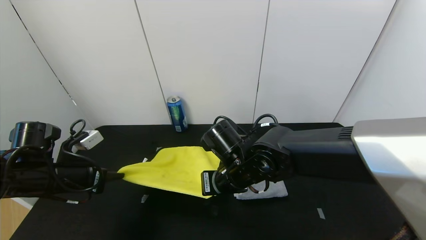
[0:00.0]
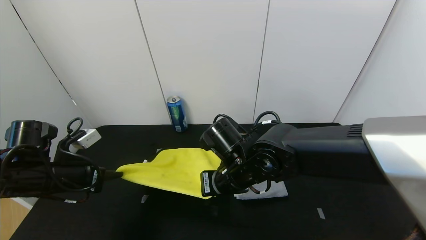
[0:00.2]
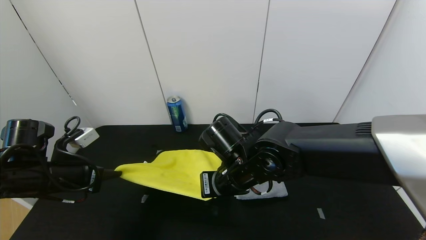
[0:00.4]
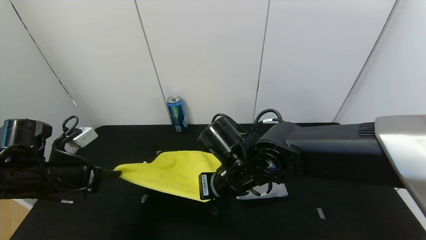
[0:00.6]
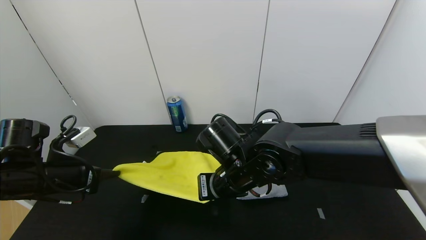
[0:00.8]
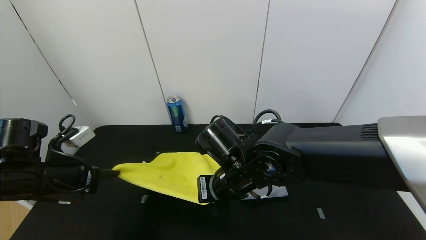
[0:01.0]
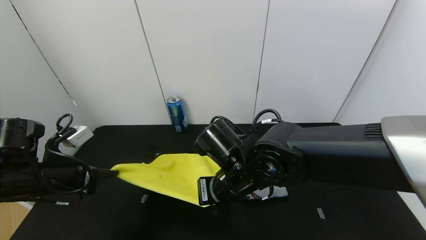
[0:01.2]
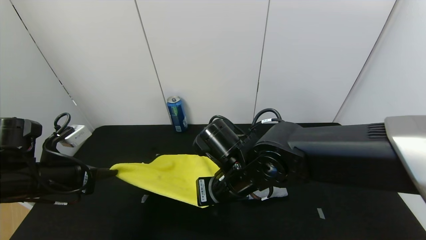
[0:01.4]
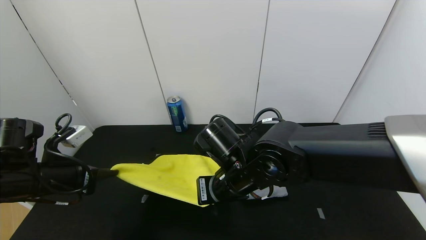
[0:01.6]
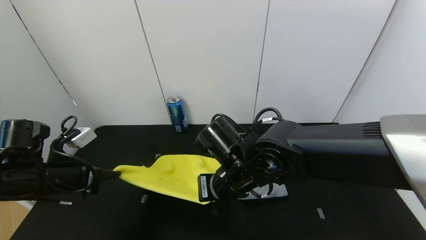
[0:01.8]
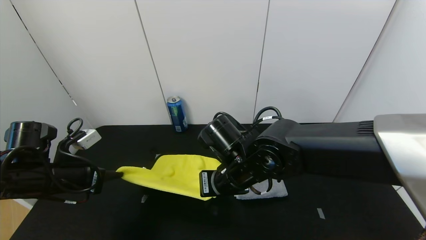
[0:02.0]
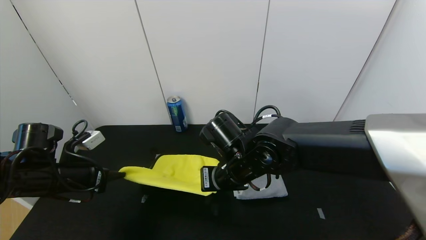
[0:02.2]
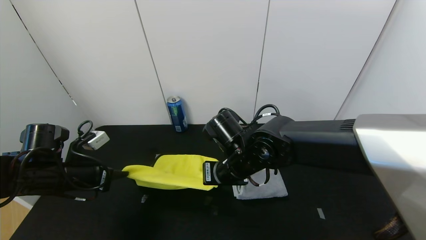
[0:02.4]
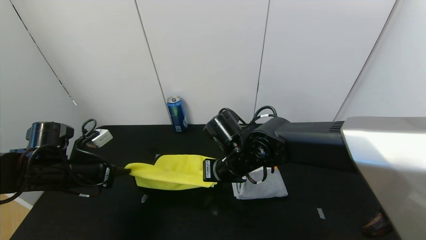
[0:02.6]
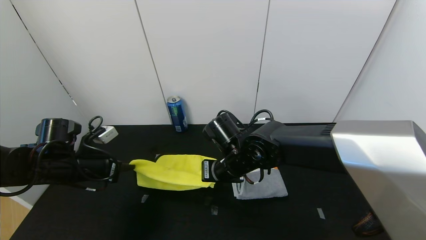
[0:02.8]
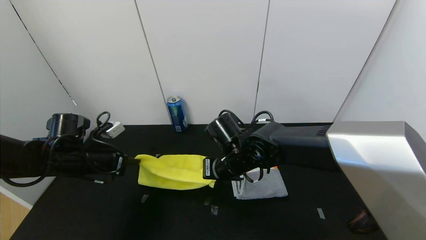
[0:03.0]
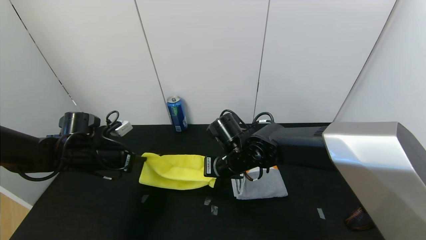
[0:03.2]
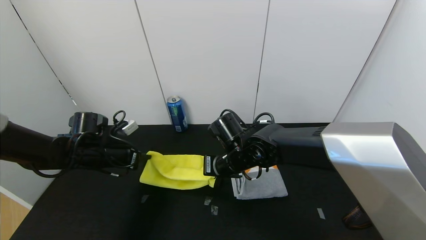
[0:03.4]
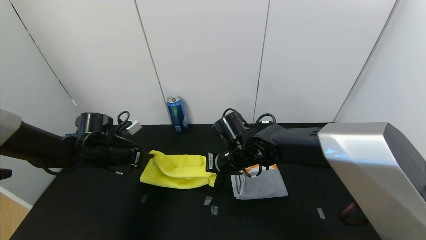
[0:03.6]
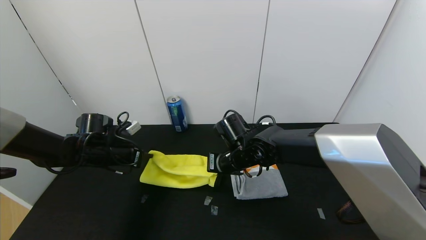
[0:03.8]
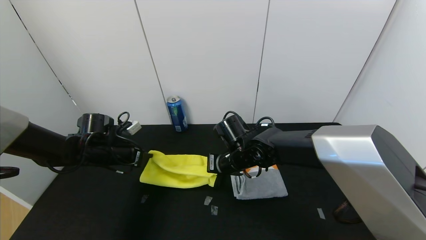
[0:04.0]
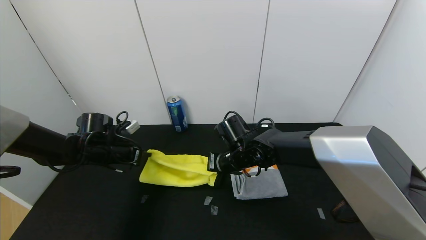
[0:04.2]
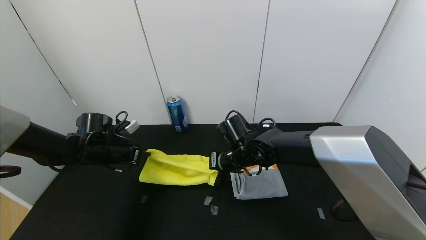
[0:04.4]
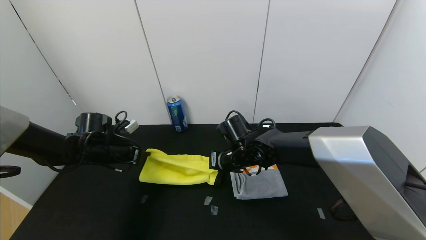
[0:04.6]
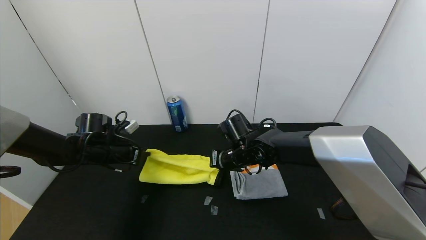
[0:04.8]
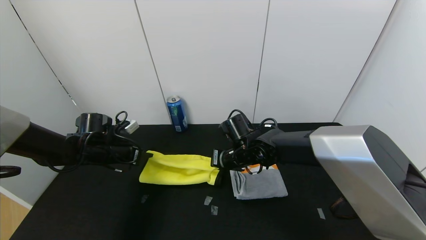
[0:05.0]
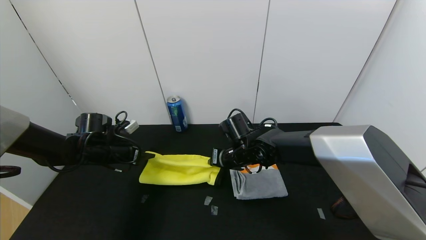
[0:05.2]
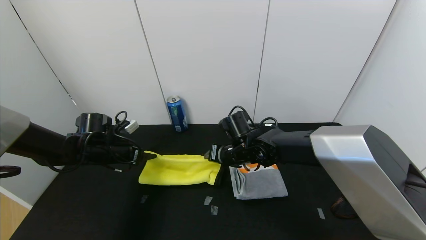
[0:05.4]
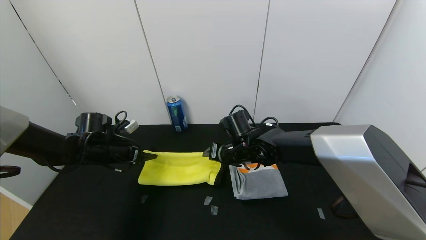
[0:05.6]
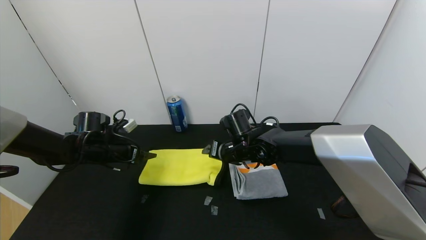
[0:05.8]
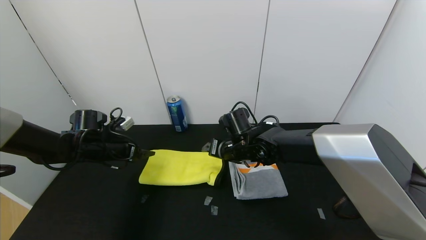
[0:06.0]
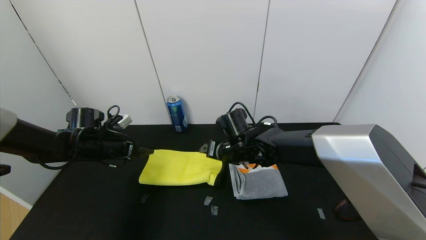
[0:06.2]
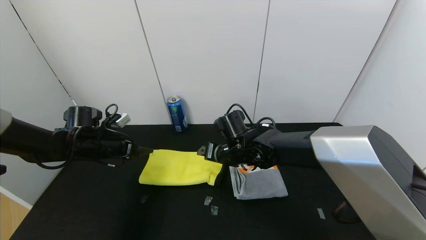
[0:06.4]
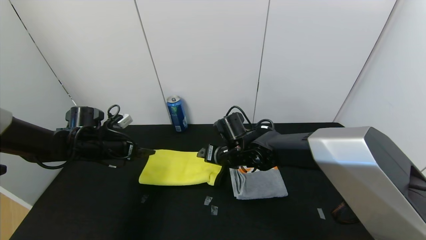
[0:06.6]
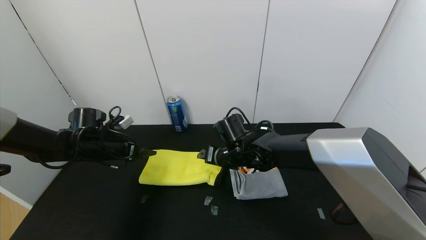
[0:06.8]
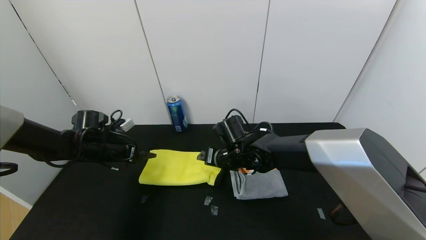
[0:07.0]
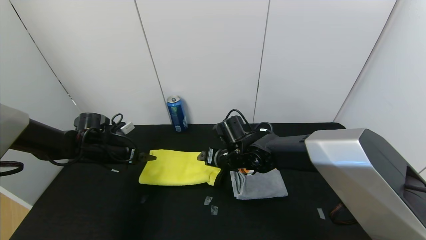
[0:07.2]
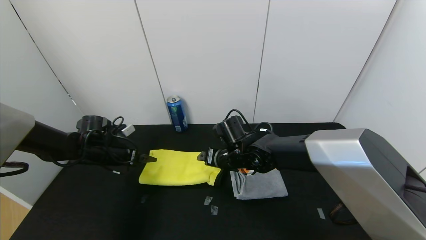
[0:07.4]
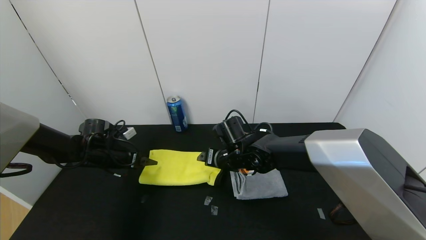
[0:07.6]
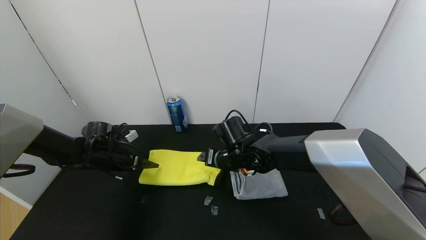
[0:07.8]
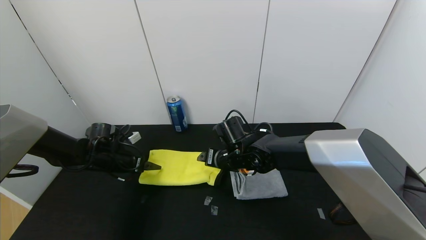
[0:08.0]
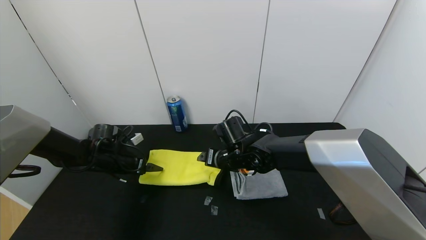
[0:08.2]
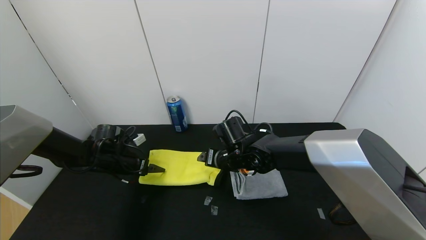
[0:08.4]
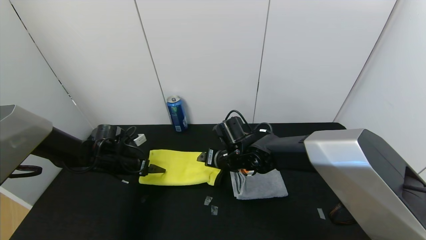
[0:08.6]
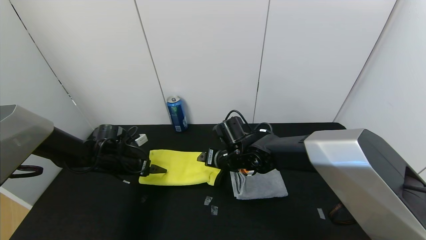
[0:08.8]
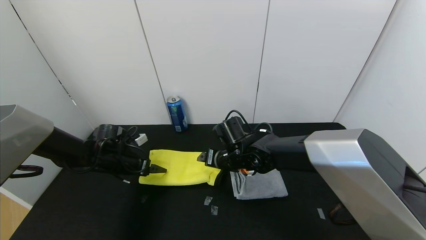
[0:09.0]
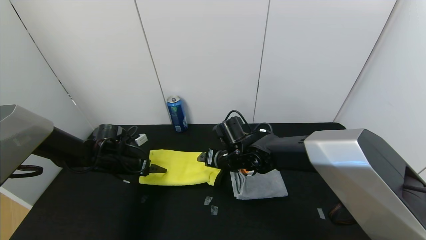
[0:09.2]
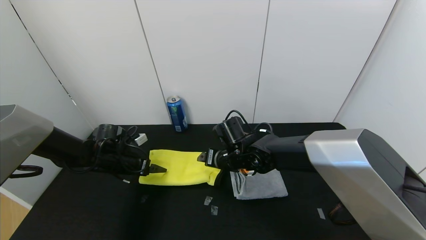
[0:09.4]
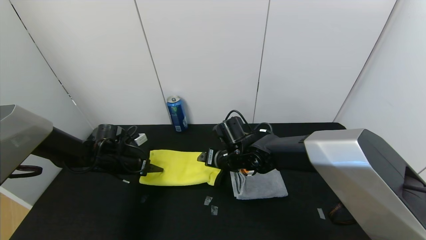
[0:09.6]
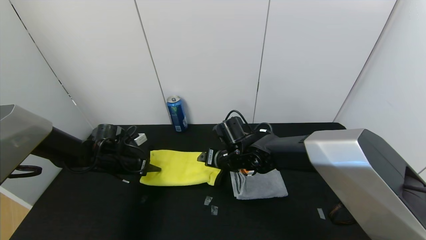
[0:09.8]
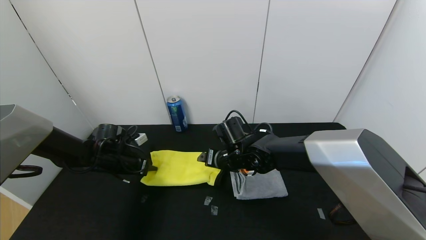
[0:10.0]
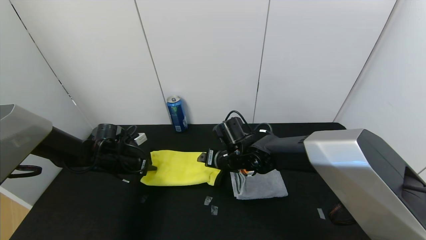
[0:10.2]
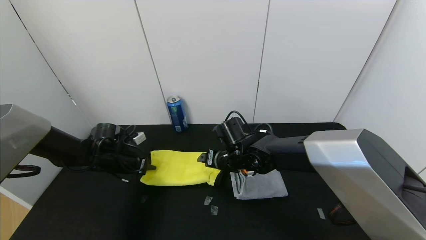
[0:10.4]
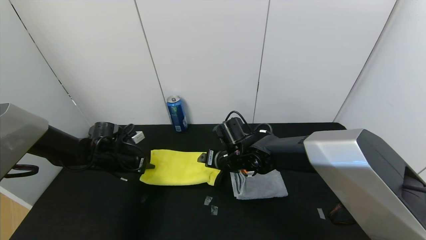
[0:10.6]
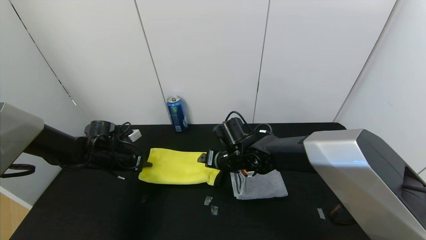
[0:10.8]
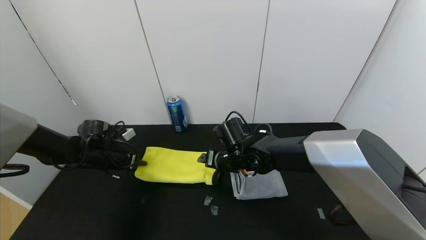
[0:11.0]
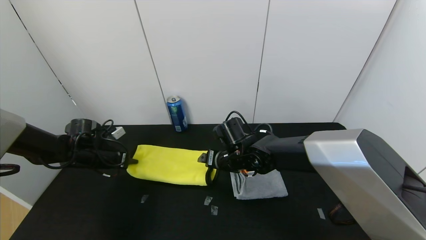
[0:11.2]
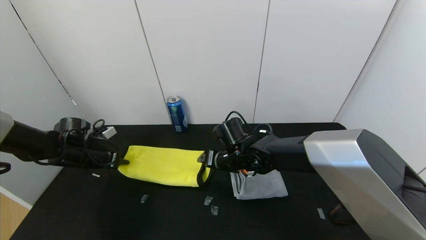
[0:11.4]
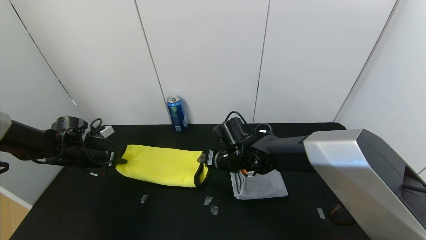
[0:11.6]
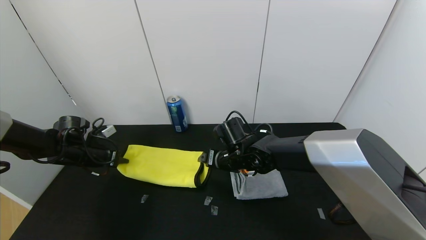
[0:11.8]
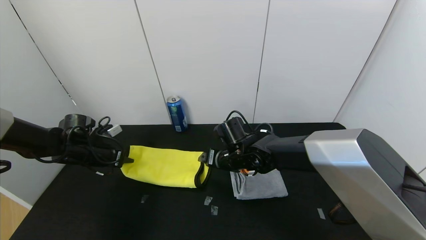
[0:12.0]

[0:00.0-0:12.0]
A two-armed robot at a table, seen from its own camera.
Task of the whole recording: Use the gripper to fold the yellow towel and grey towel in half twice,then put the yellow towel on the grey towel.
Step, 0:00.0 to 0:05.8: Fold the yellow towel upwards with the left gripper.
Step, 0:00.0 to 0:05.8: Fold the yellow towel upwards with the right gripper.
0:00.0 to 0:01.6: The grippers stay close to where they were, moving slightly.
0:01.6 to 0:03.0: Both grippers move forward, about 10 cm.
0:03.0 to 0:04.4: The left gripper shifts some 5 cm forward. Meanwhile the right gripper shifts by about 5 cm.
0:04.4 to 0:06.0: The left gripper opens its fingers, while the right gripper opens its fingers.
0:06.0 to 0:09.0: There are only small adjustments of the grippers.
0:09.0 to 0:10.4: The left gripper closes up.
0:10.4 to 0:12.0: The left gripper goes roughly 5 cm to the left.

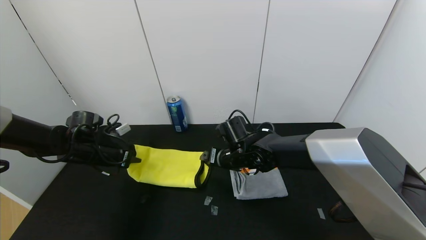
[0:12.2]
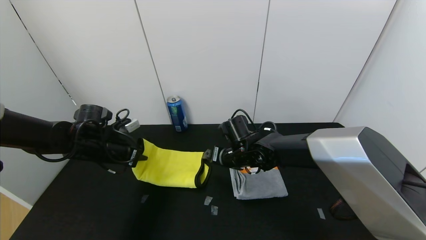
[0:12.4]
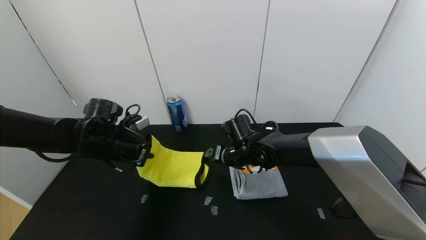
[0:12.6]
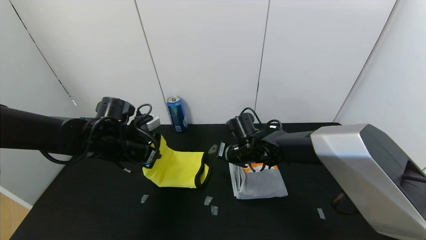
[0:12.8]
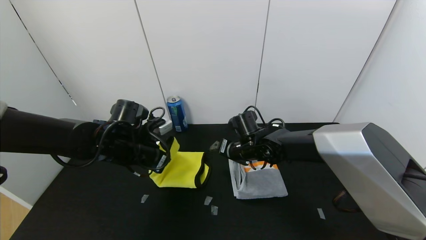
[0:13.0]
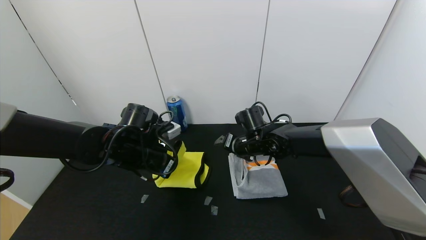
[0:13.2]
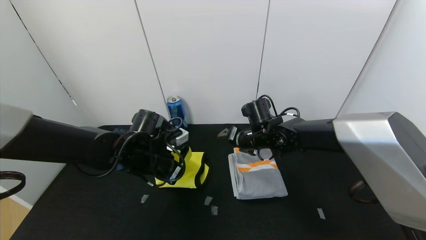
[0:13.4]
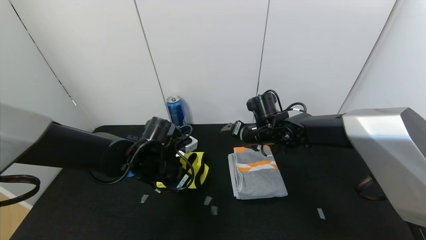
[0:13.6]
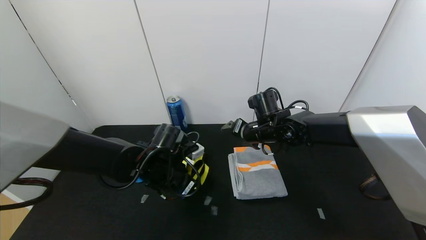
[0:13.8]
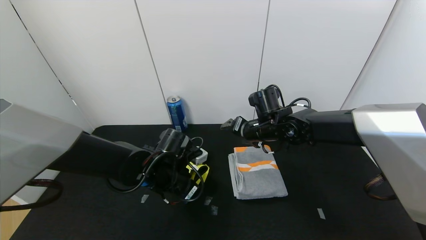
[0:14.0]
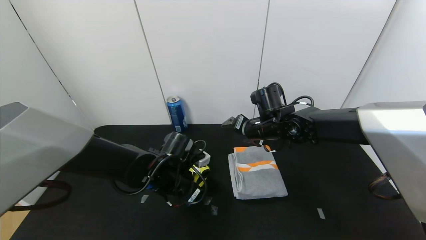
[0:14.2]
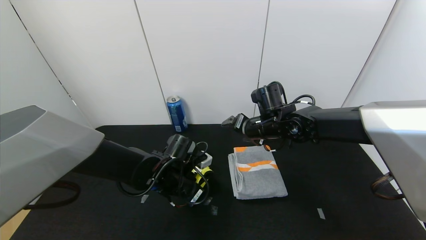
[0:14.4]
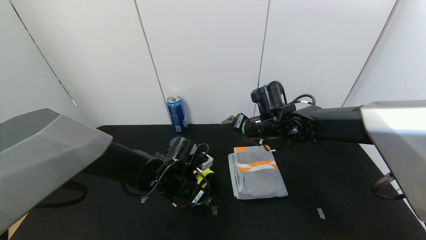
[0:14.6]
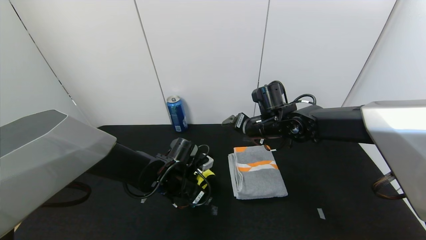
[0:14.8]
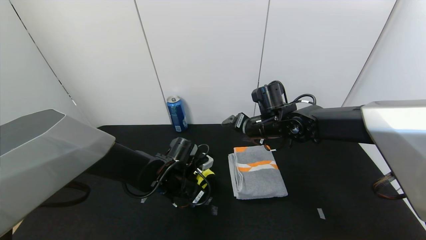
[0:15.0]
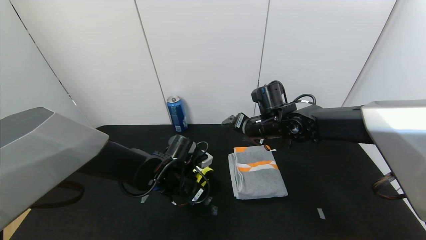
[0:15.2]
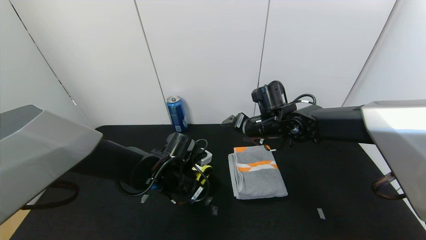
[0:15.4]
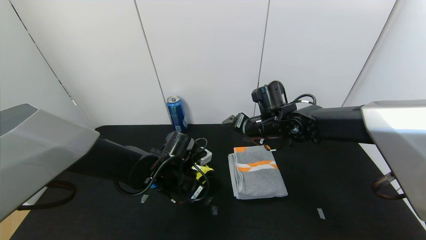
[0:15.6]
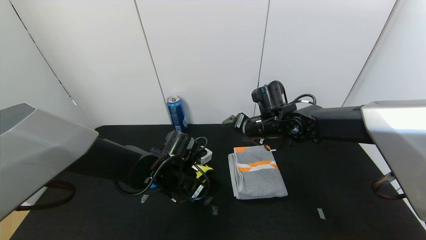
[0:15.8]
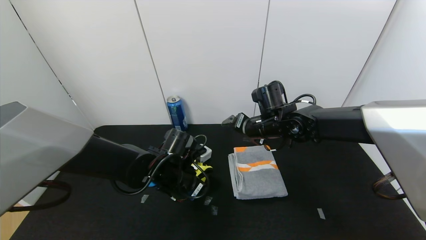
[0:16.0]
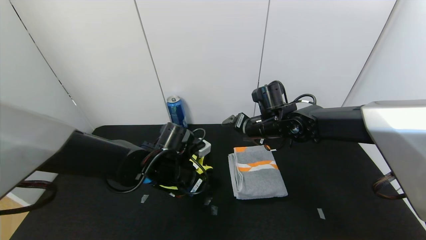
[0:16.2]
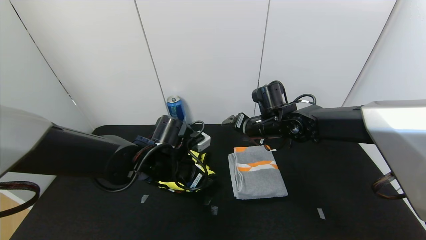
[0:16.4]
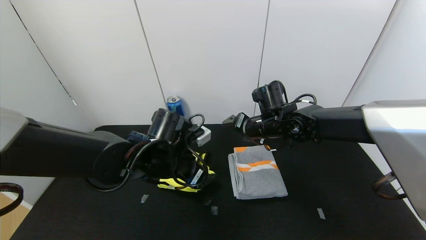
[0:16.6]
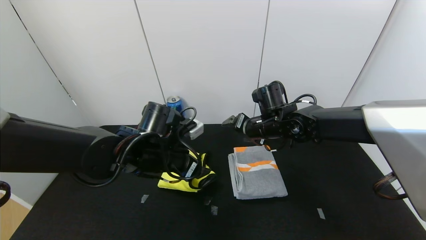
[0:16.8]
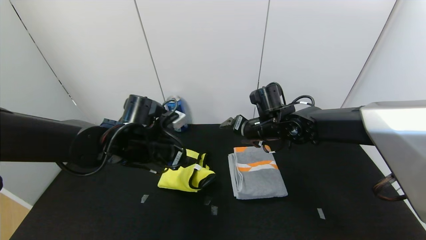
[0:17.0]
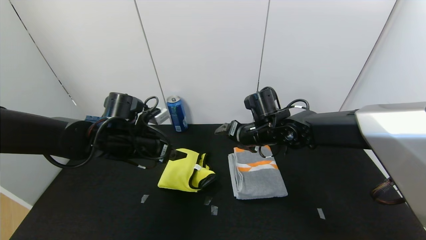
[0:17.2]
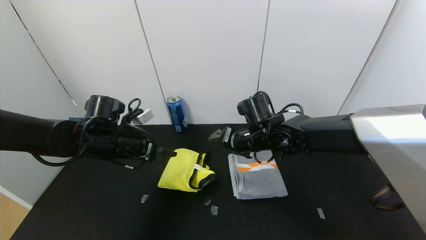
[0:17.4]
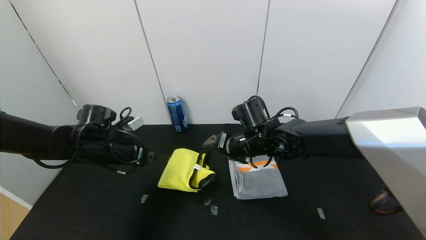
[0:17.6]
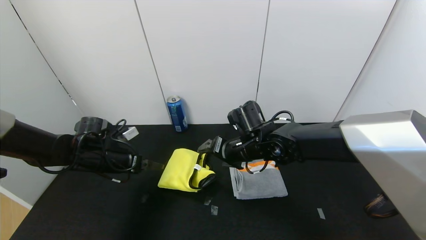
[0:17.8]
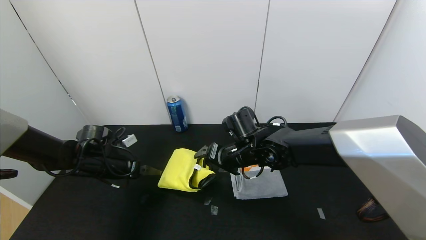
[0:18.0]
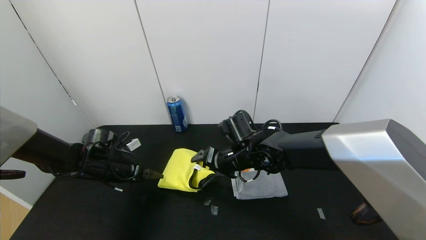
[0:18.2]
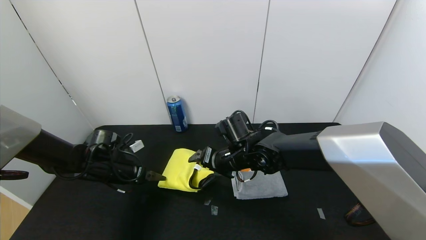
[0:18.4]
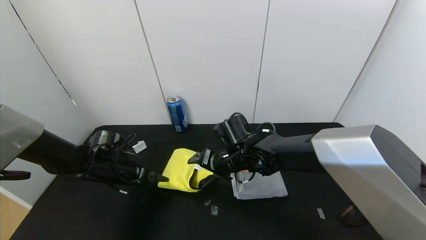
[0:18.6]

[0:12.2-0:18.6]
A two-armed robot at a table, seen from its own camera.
Task of the whole recording: Use the gripper to fold the yellow towel and grey towel in half twice,then put the yellow towel on the grey towel.
Step, 0:12.2 to 0:16.4: Fold the yellow towel from left to right with left gripper.
0:12.2 to 0:13.8: The right gripper travels to the right and upward by roughly 10 cm; the left gripper goes roughly 20 cm to the right.
0:13.8 to 0:15.4: The grippers make only small movements.
0:15.4 to 0:17.0: The left gripper goes some 10 cm upward, and opens its fingers.
0:17.0 to 0:18.6: The right gripper travels to the left and downward by approximately 10 cm. Meanwhile the left gripper travels to the left and downward by roughly 15 cm.
